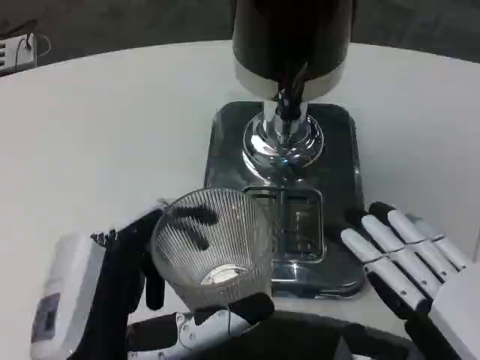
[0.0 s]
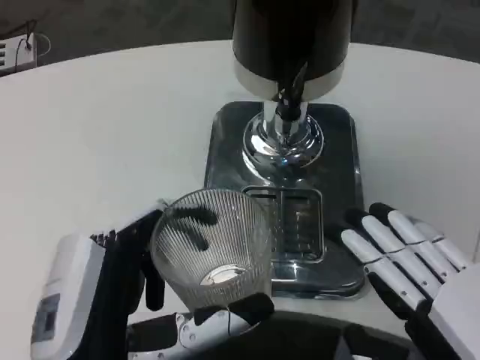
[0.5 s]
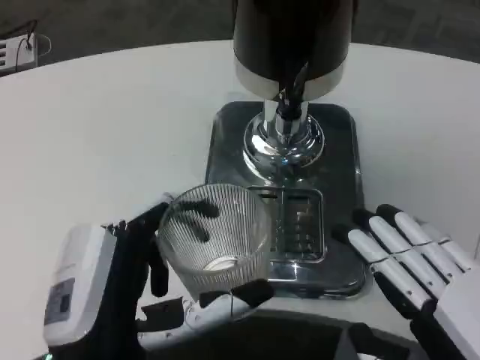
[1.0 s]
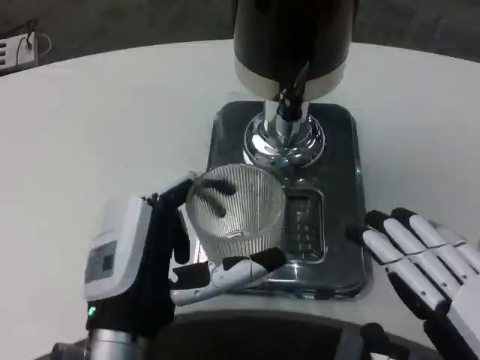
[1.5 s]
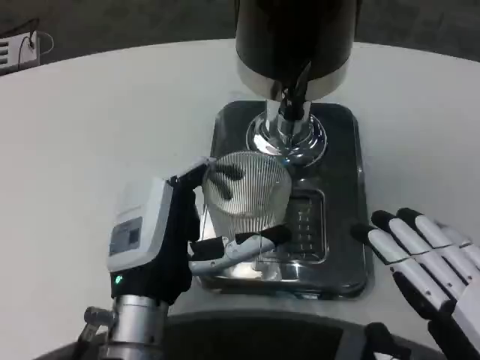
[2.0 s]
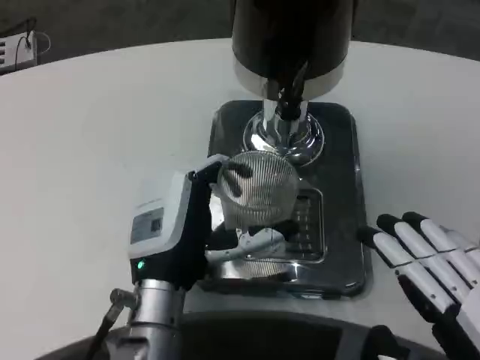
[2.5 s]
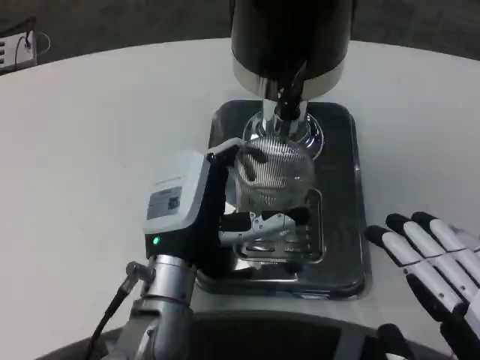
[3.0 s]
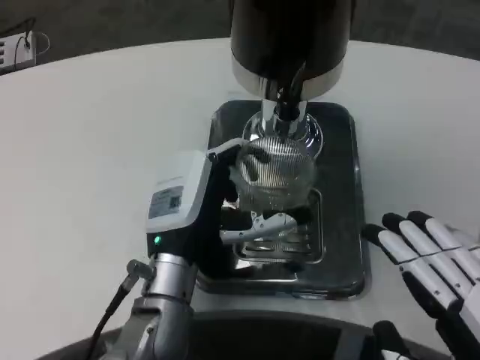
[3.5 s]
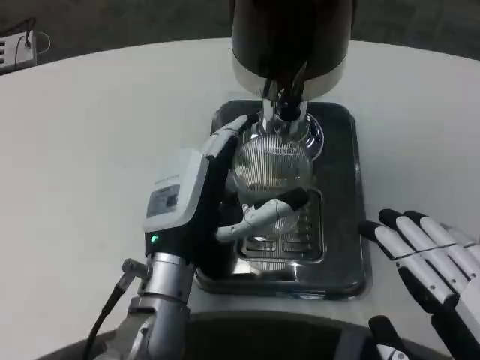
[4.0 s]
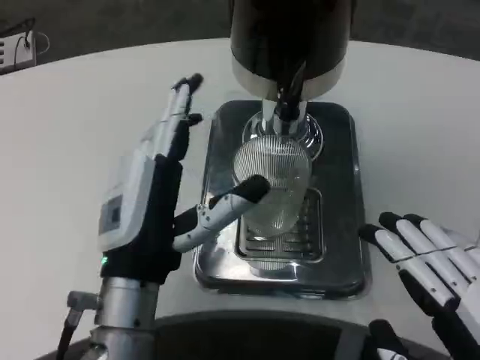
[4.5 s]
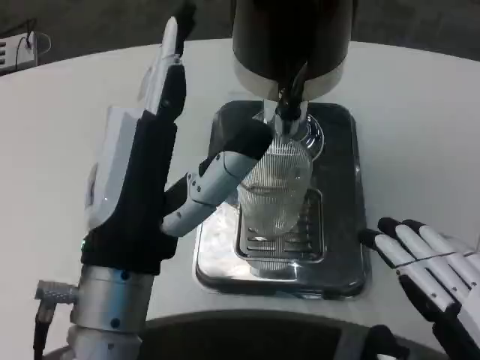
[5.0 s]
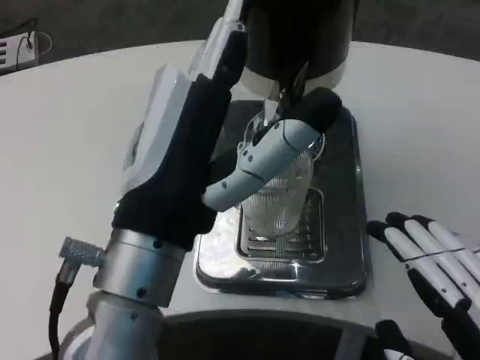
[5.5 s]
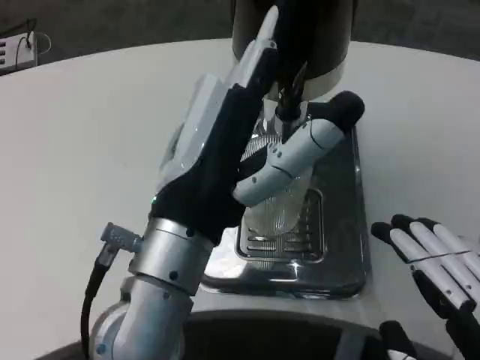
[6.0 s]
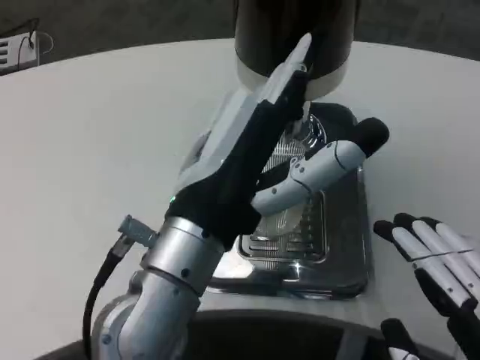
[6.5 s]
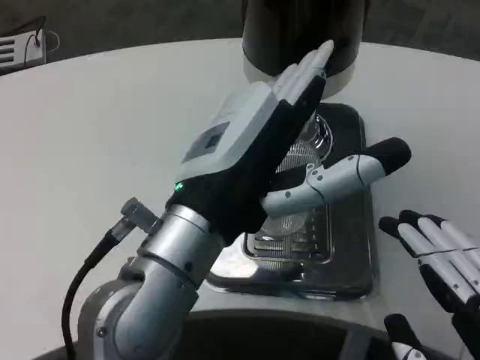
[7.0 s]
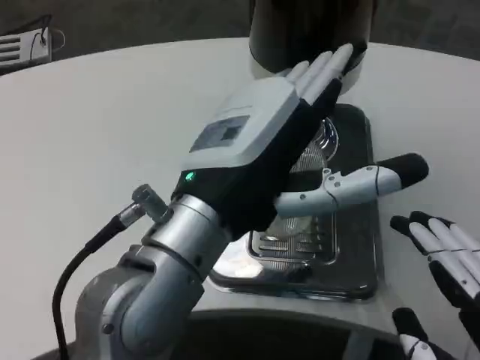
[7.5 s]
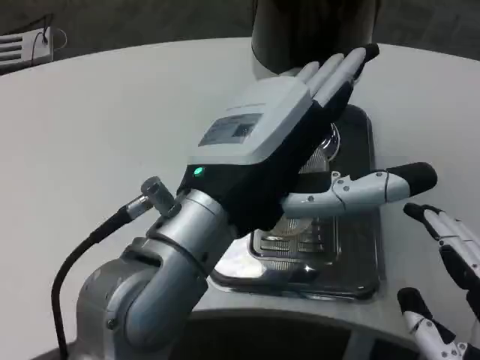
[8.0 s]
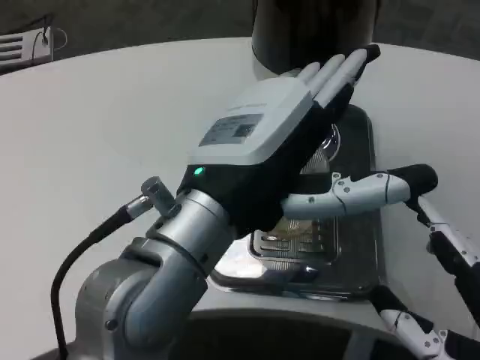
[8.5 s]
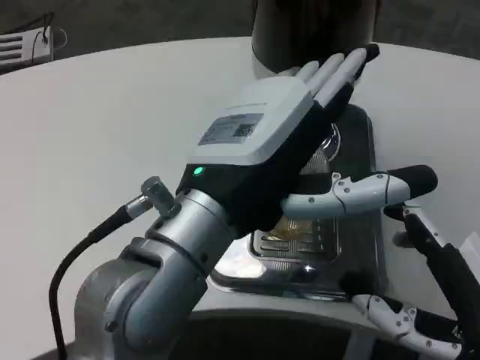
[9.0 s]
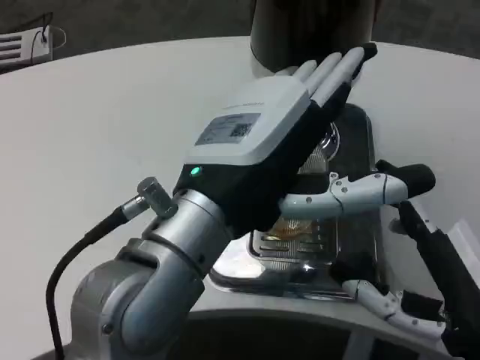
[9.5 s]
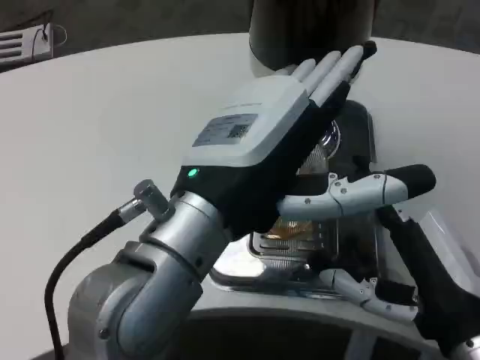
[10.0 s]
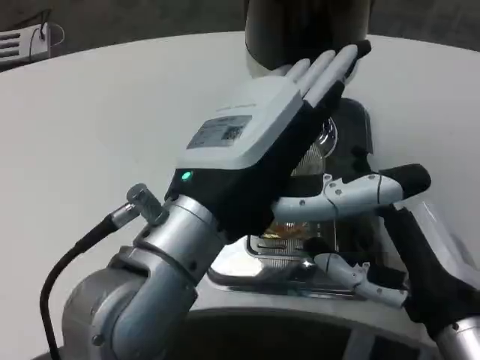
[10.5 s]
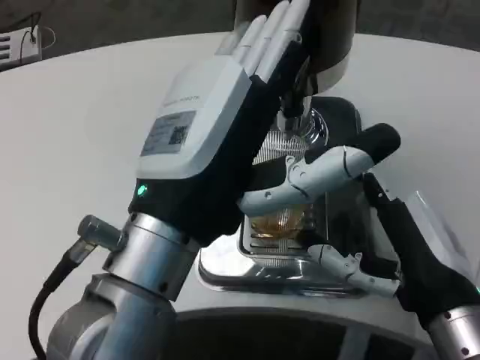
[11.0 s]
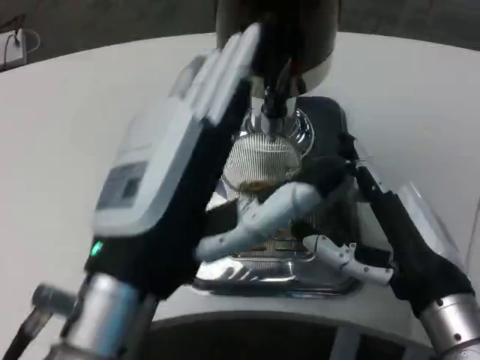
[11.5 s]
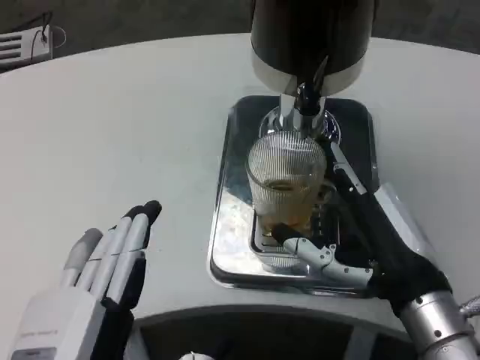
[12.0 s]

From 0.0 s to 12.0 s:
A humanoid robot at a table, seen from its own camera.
Task of the whole recording: Grasp the cup under the faucet to collect the drink, then remove the cup.
From 0.0 s to 2.0 s: The left hand goes roughly 10 cm forward.
From 2.0 s to 4.0 s: The left hand travels forward by approximately 5 cm.
From 4.0 s to 6.0 s: The left hand heads upward and backward, covering roughly 15 cm.
From 8.0 s to 10.0 s: The right hand is displaced forward by roughly 10 cm.
From 10.0 s to 12.0 s: The left hand shifts about 20 cm downward, backward and to the left, while the right hand changes place by about 5 cm.

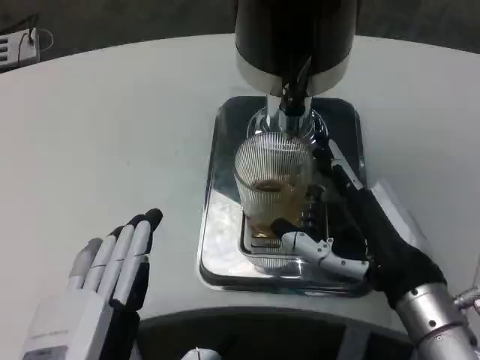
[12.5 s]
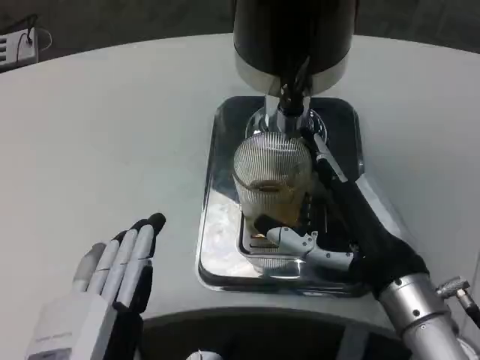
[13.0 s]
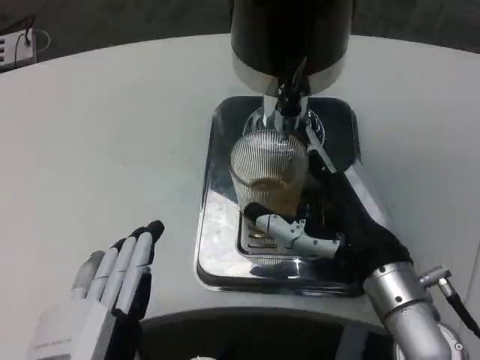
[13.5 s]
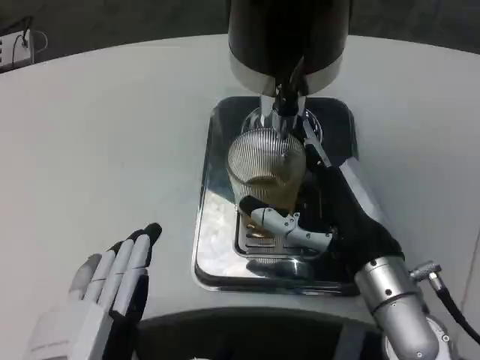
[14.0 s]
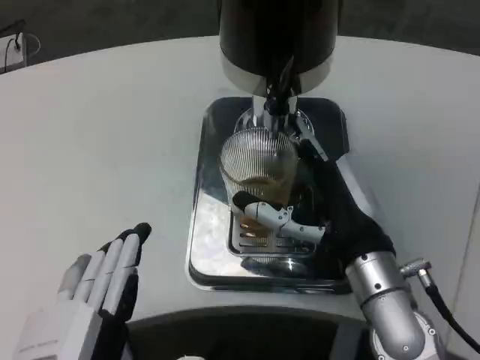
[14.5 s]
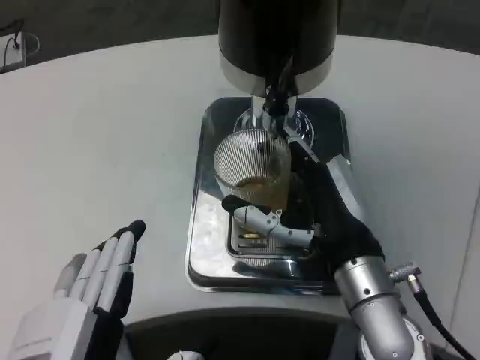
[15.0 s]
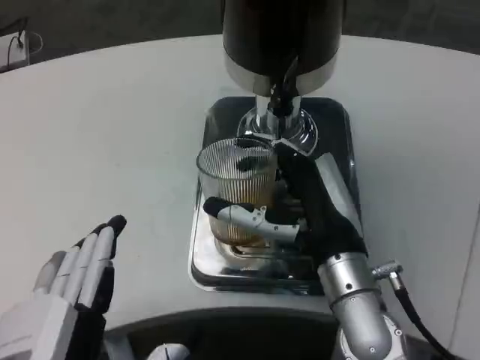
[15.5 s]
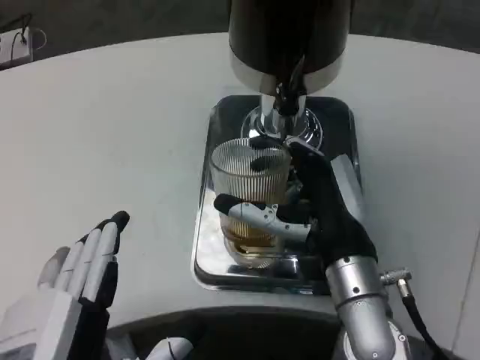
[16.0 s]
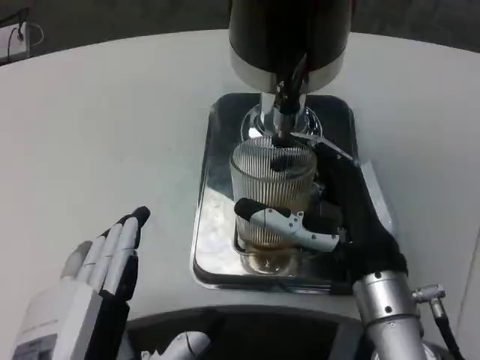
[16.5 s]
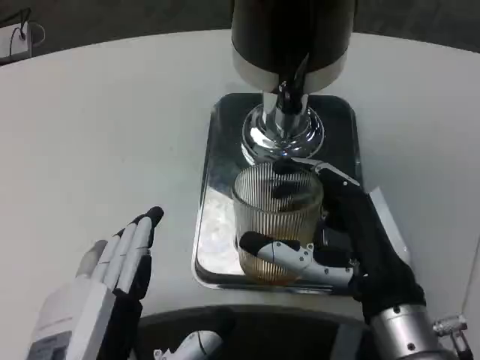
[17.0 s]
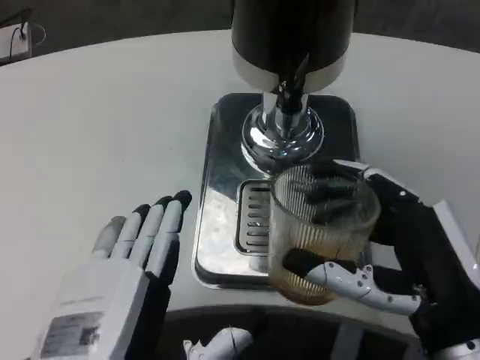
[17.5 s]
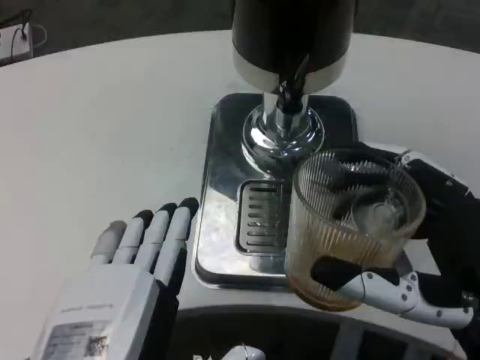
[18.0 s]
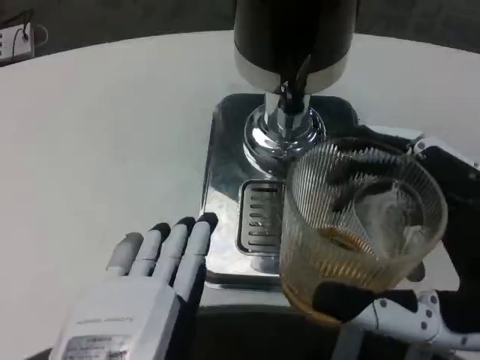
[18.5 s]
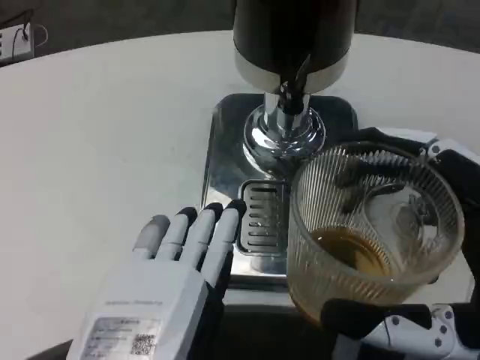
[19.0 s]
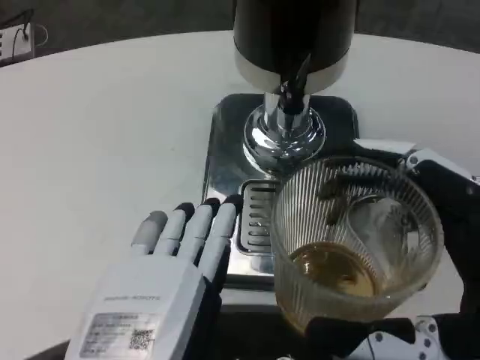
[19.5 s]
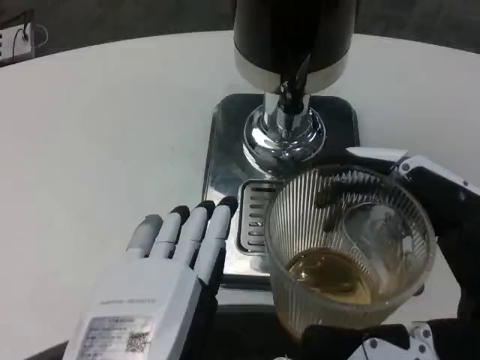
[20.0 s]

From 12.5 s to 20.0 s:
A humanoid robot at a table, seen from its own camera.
Task of the whole recording: Grasp the cup under the faucet to collect the drink, then remove the cup.
From 12.5 s to 14.5 s: The right hand moves approximately 5 cm.
From 16.5 s to 18.0 s: The right hand shifts some 15 cm backward and to the right.

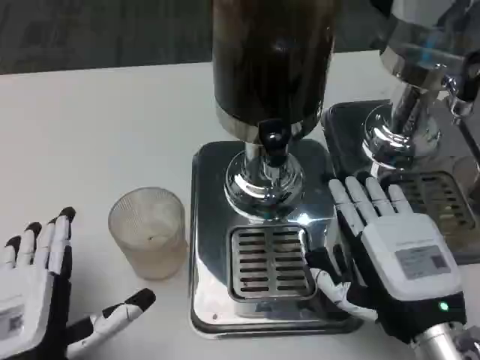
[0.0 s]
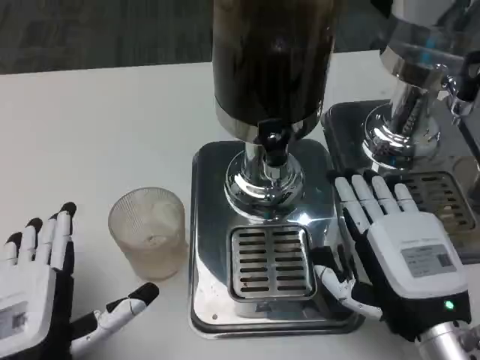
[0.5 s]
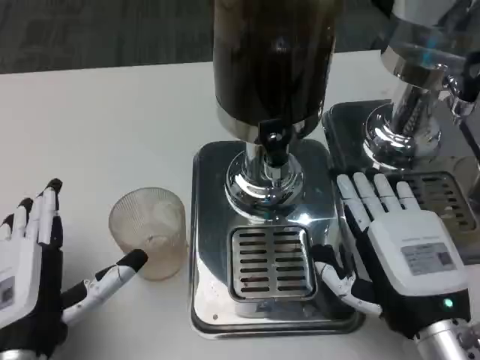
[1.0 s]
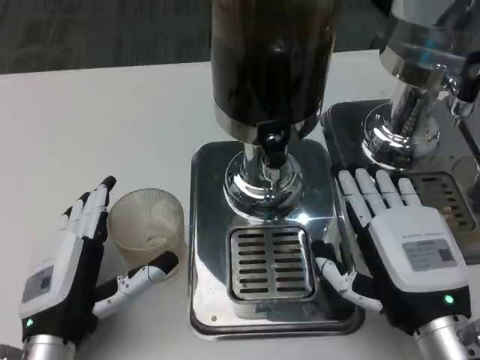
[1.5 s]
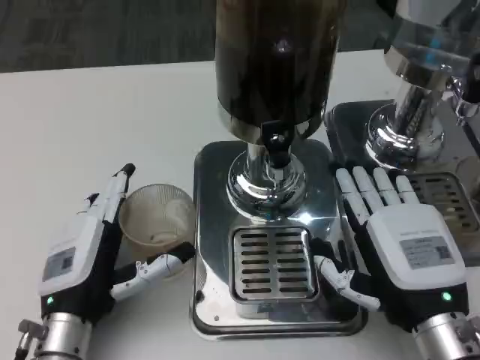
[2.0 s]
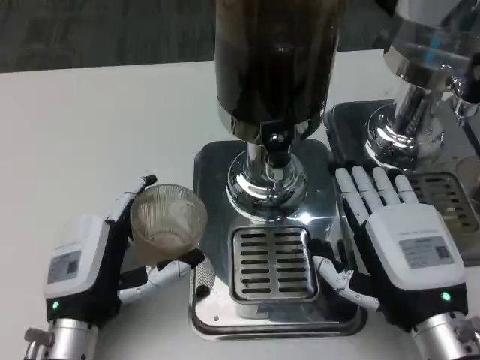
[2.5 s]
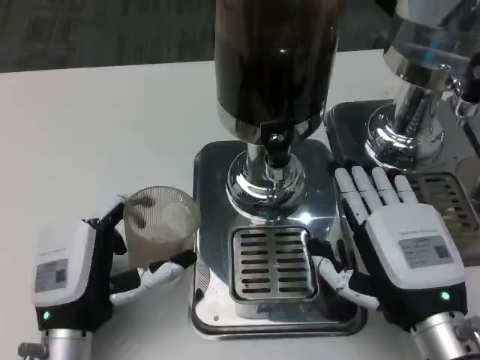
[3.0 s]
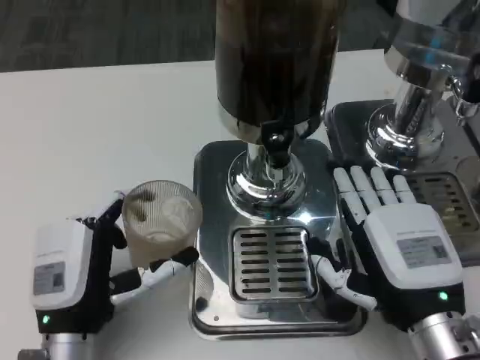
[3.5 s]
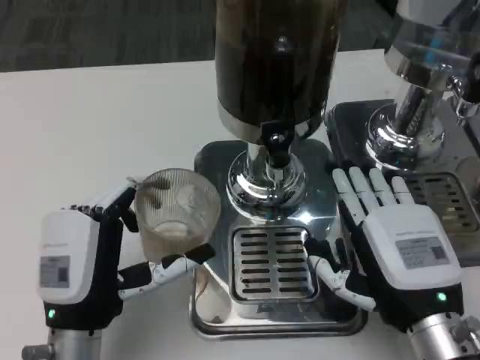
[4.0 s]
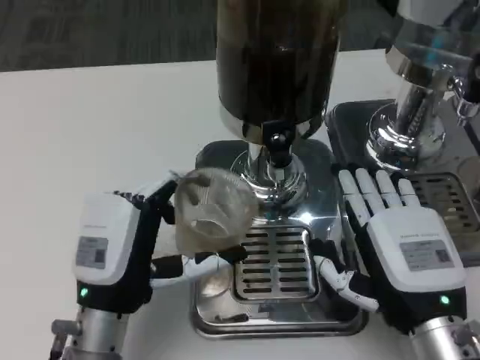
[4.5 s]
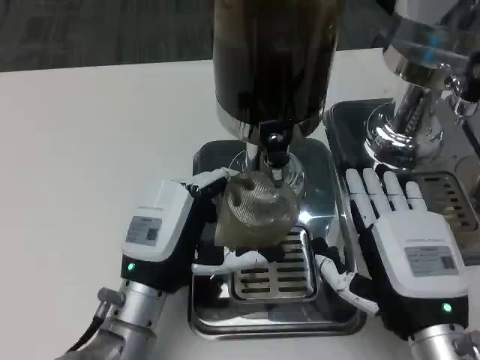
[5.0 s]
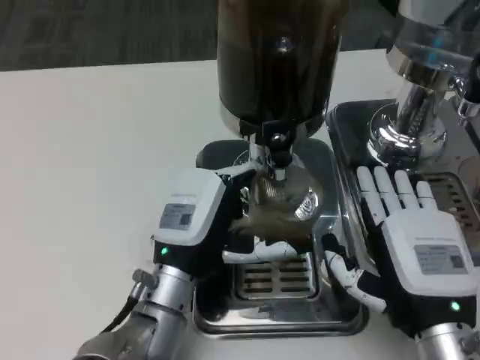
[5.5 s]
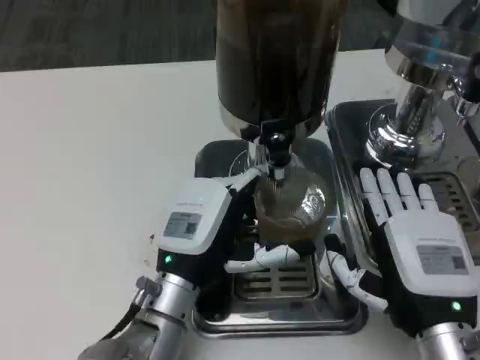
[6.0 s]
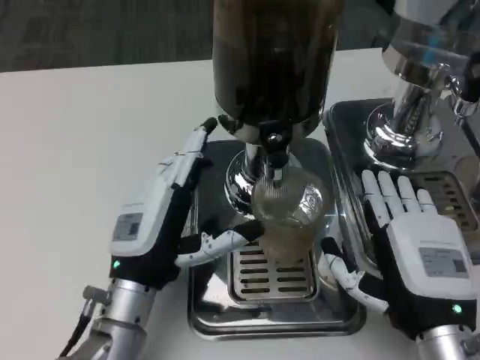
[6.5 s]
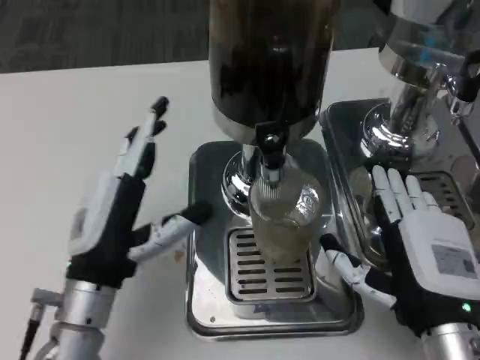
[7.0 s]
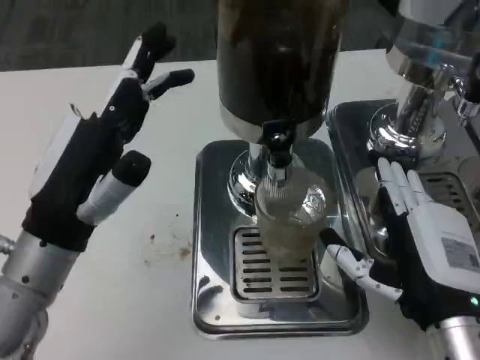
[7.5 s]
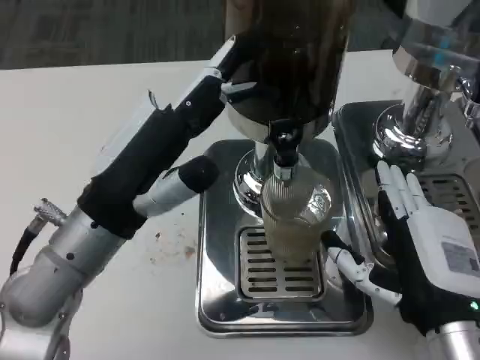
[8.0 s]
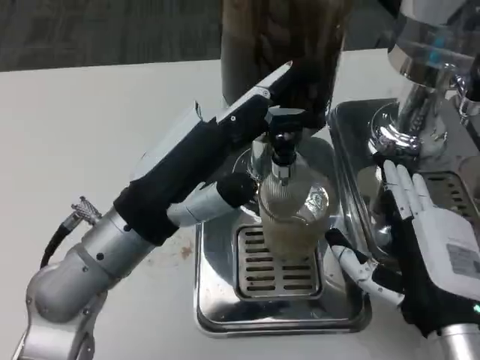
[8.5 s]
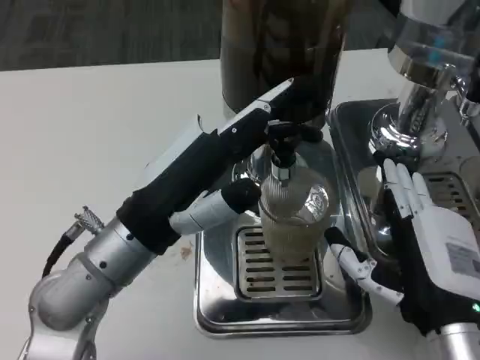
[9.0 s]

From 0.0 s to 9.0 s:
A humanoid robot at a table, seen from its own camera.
Task of the whole recording: Grasp the cup under the faucet to collect the drink, then remove the cup.
From 0.0 s to 2.0 s: The left hand travels forward by some 10 cm.
From 7.0 s to 9.0 s: The left hand moves upward, about 5 cm.
